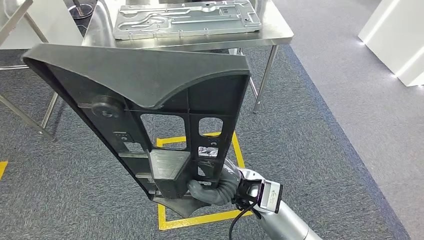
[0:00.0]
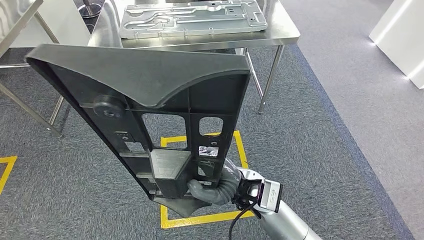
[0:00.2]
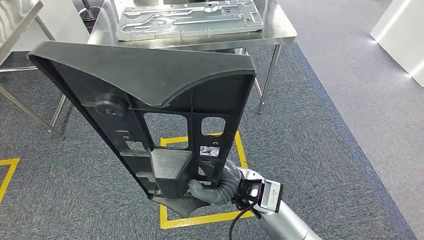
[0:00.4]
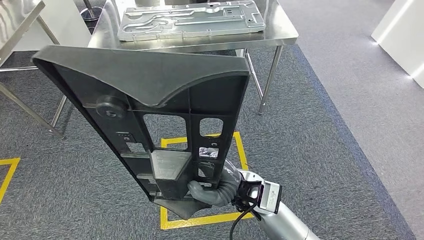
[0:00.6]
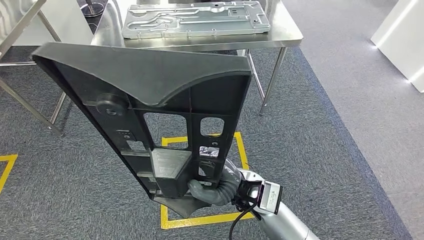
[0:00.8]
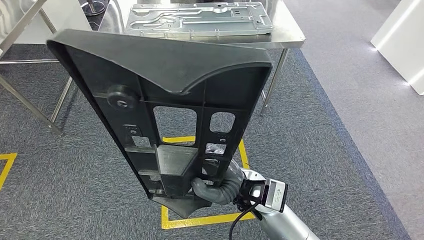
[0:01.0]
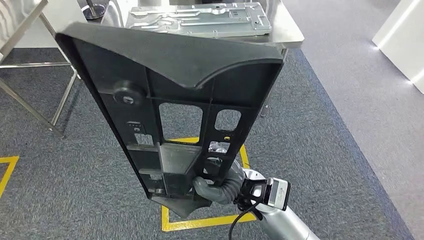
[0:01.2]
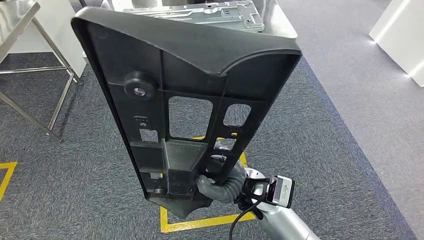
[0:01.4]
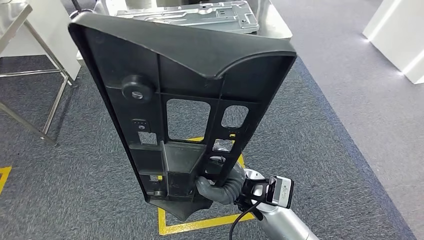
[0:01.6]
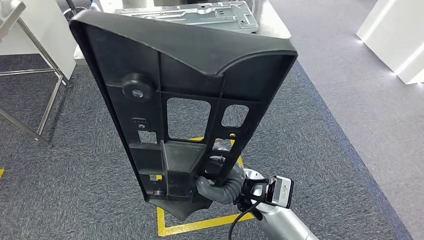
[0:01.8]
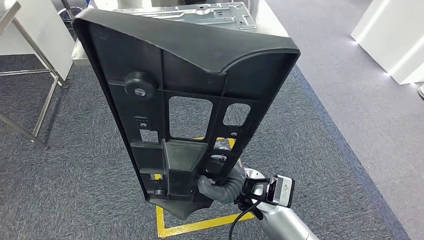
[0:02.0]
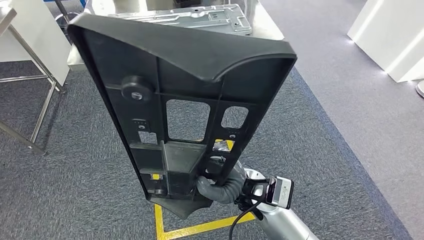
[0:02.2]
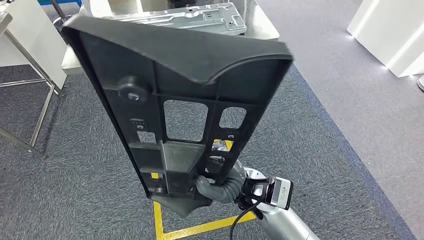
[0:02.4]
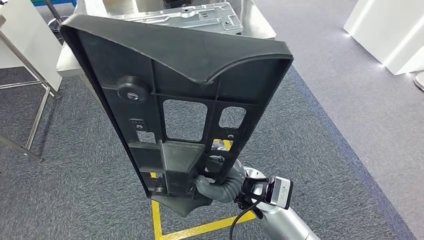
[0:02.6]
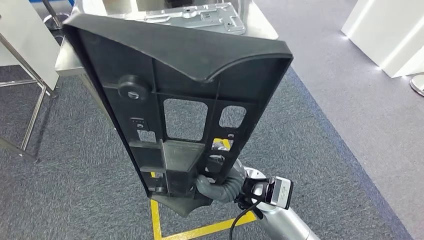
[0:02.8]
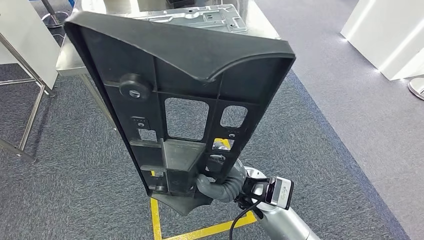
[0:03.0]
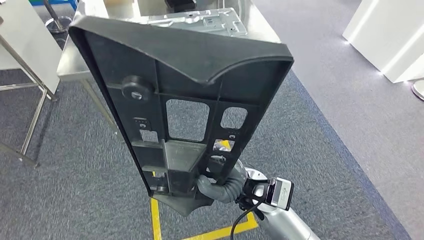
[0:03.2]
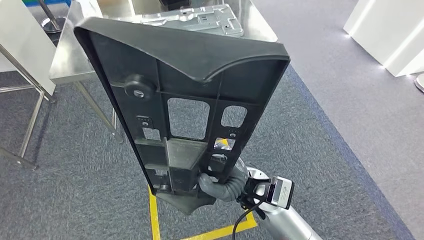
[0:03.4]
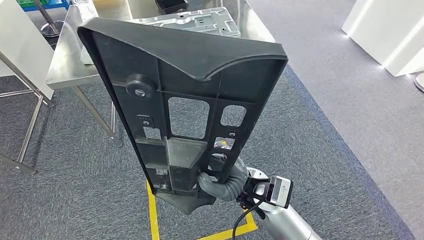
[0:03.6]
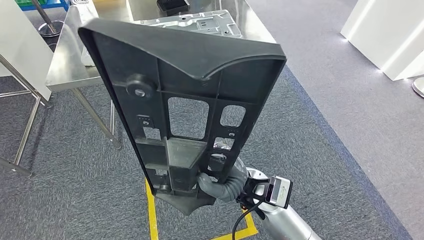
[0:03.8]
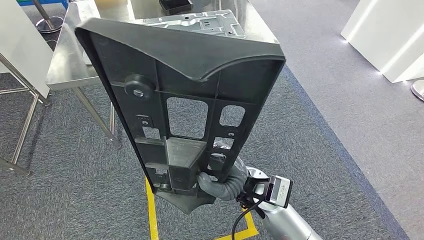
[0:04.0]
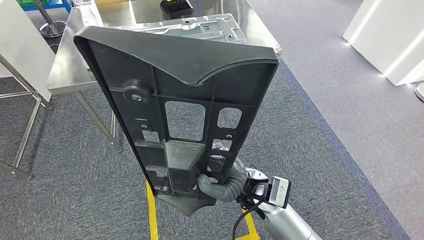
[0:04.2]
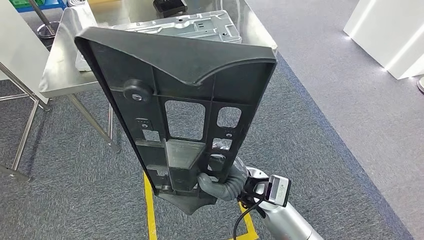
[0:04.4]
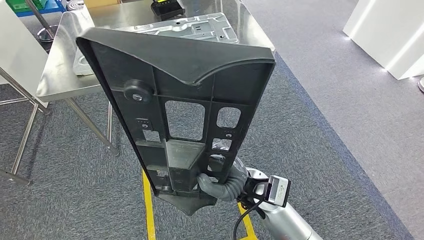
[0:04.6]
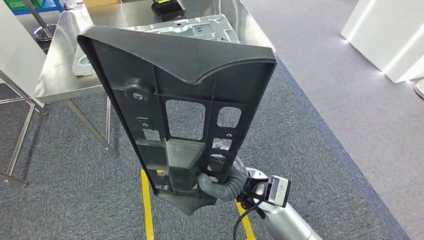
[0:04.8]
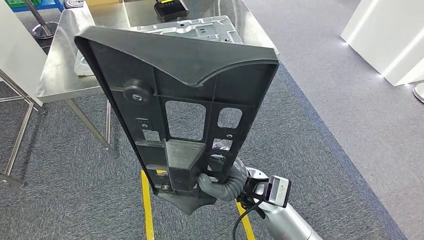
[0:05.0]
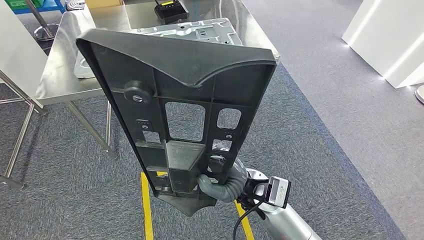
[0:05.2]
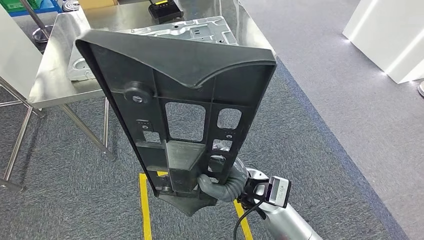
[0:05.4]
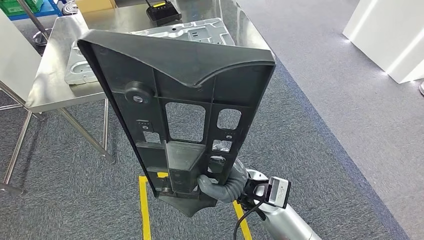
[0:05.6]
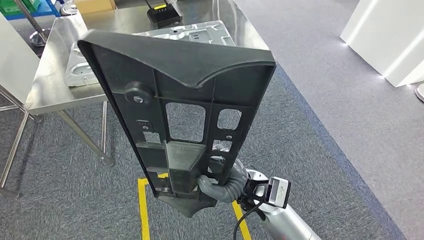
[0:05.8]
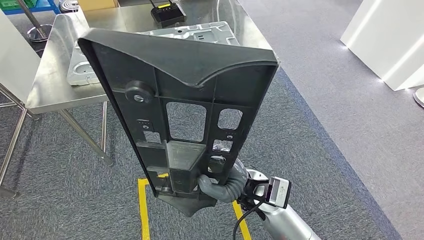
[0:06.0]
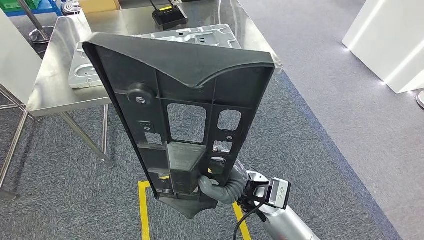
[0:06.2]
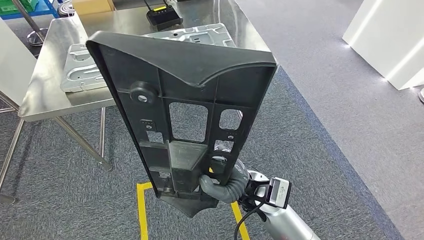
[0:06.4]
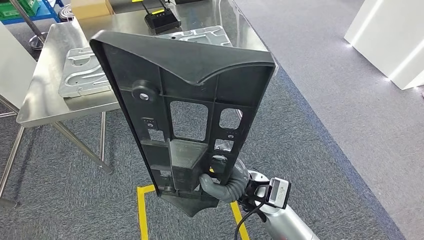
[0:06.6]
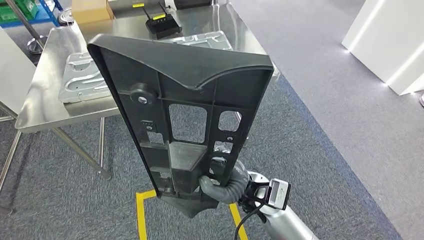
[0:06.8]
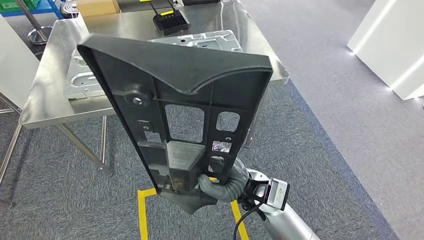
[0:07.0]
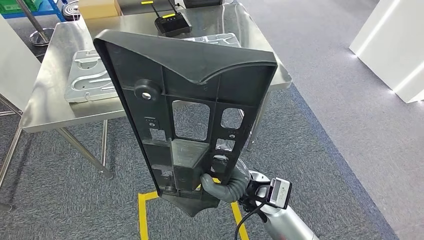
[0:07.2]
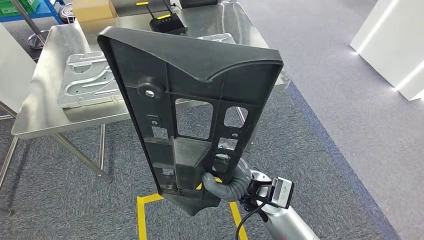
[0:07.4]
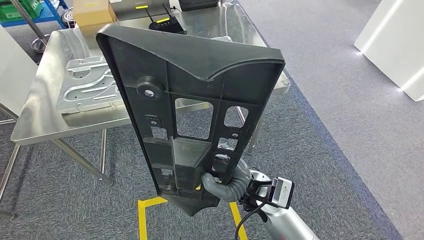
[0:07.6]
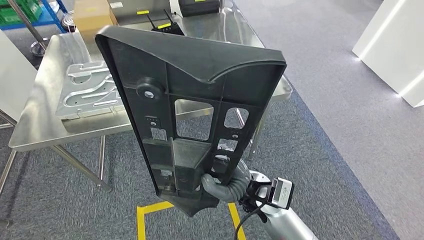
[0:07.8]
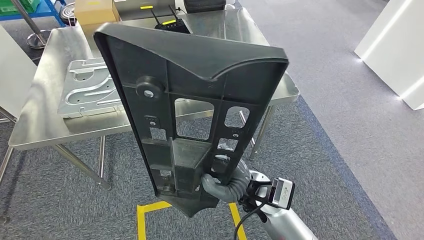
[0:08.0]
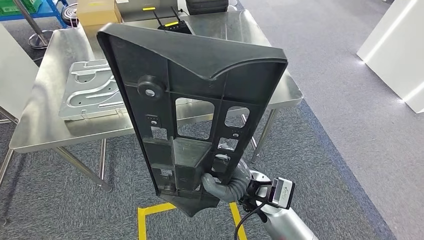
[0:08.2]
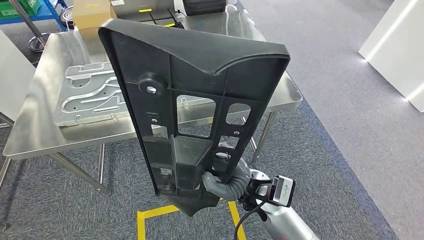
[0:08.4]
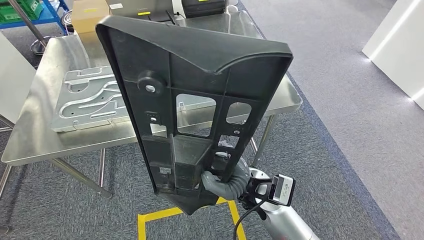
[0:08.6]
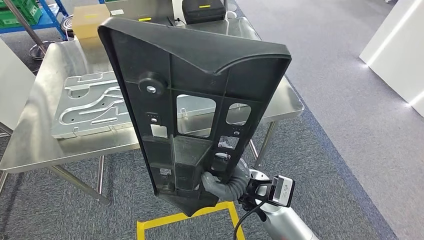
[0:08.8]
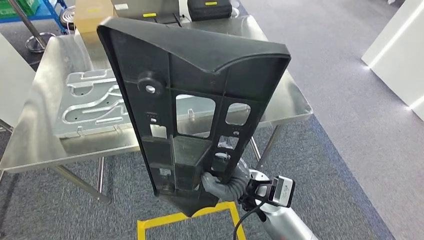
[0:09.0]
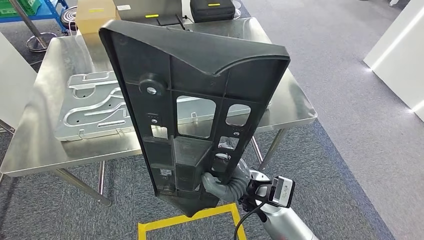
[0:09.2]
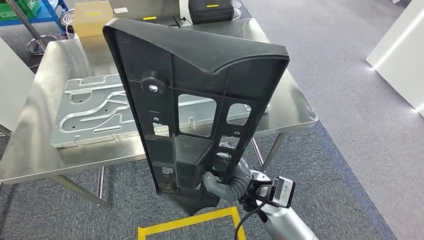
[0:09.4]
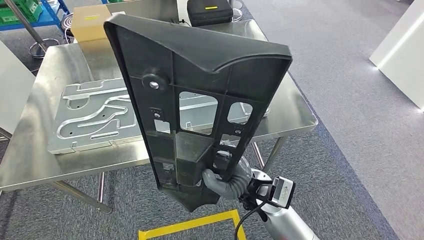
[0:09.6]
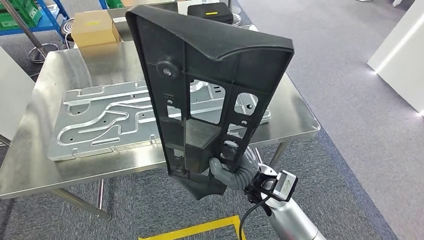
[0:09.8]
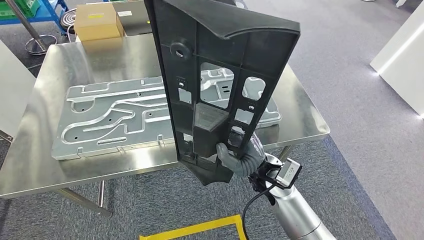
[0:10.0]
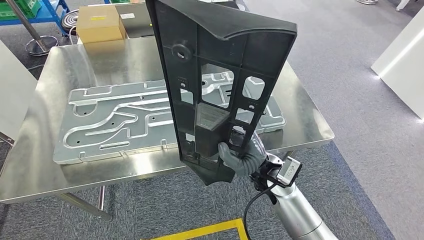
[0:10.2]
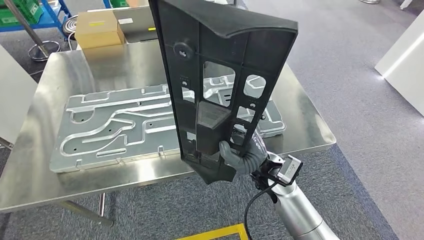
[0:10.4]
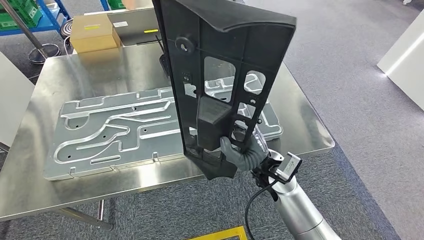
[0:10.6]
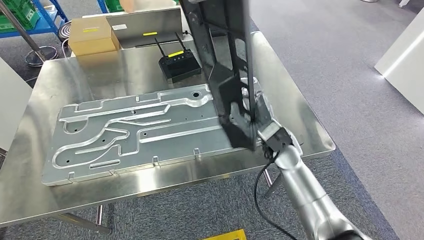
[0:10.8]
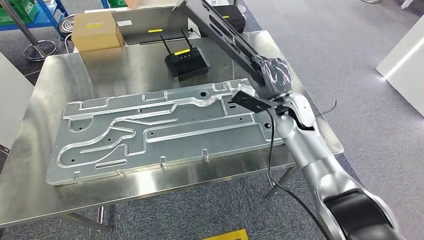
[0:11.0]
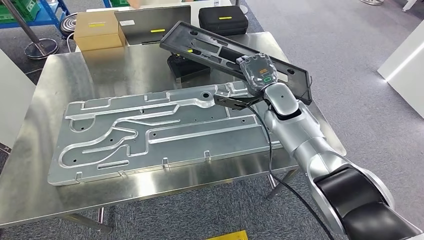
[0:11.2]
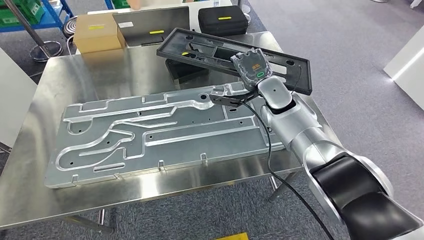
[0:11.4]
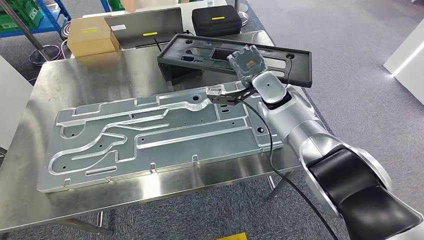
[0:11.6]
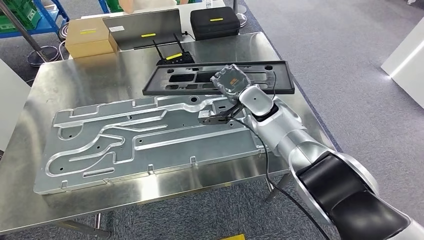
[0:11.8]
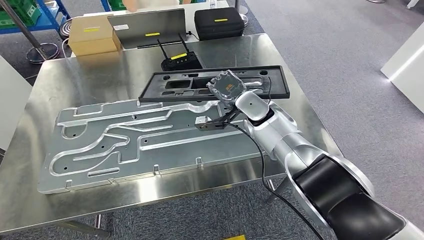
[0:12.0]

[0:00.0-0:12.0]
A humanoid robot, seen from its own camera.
Step, 0:00.0 to 0:09.2: Move the large material to the workbench.

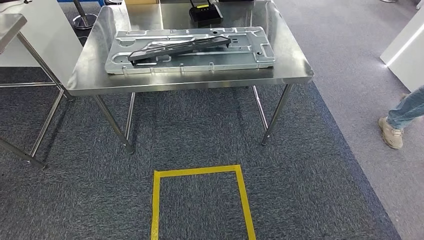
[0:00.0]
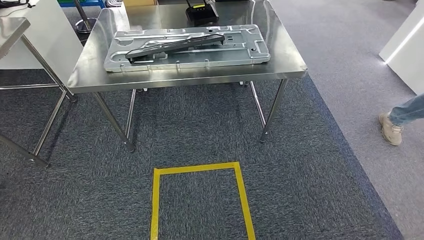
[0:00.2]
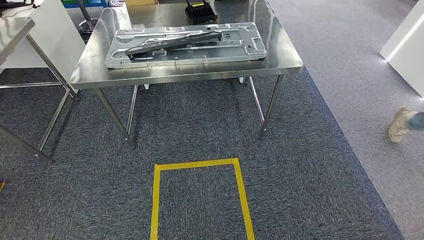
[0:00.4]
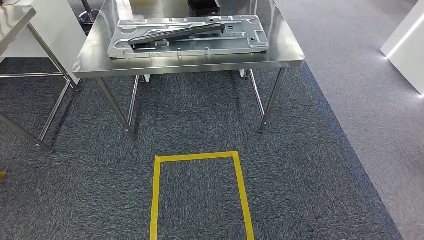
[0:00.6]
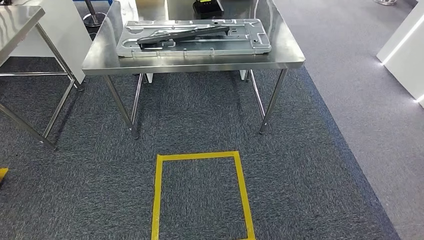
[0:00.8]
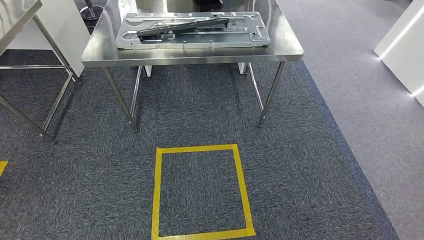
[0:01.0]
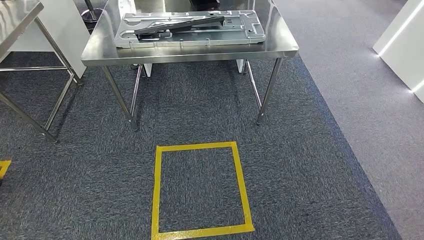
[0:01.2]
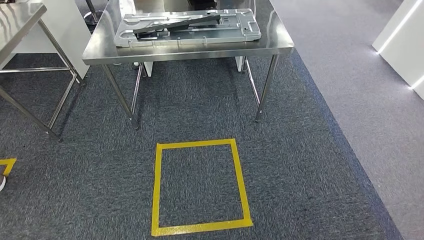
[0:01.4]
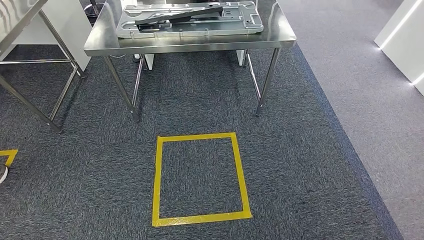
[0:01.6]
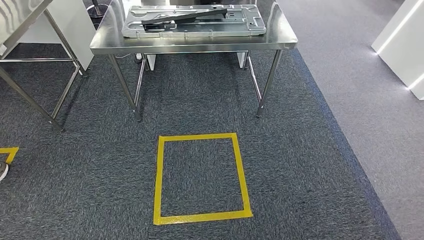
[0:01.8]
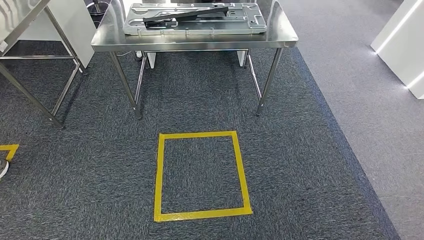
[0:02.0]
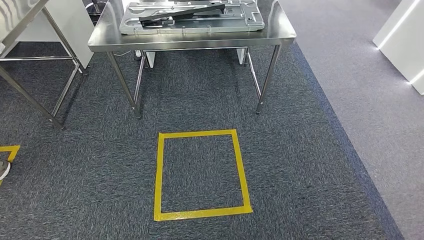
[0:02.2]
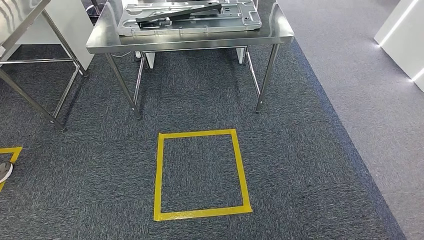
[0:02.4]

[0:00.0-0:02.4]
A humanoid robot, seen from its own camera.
Step, 0:00.0 to 0:02.4: Move to the initial position of the shelf.
0:01.2 to 0:02.4: The two hands keep their place.
